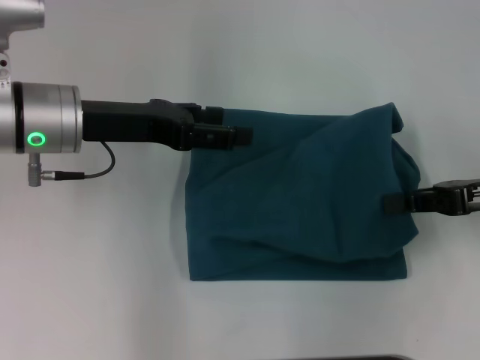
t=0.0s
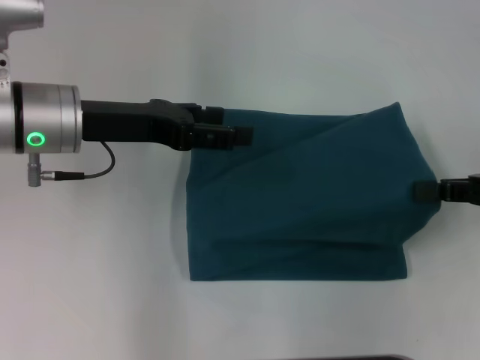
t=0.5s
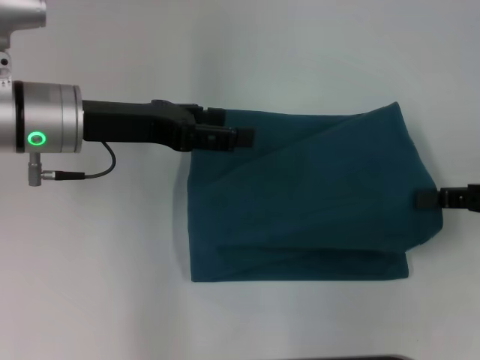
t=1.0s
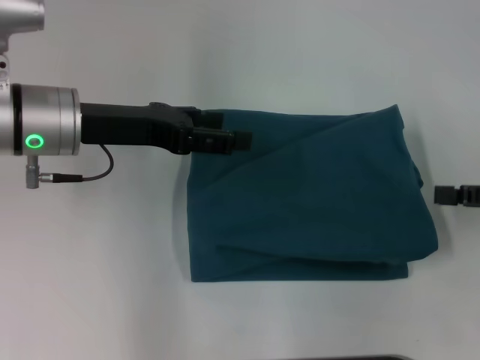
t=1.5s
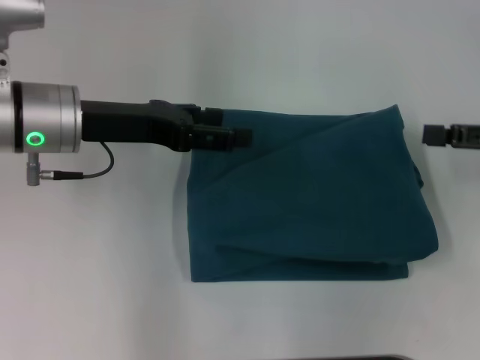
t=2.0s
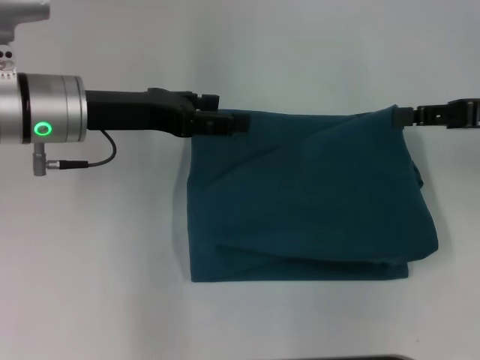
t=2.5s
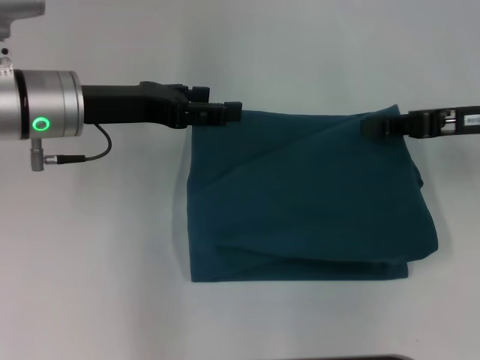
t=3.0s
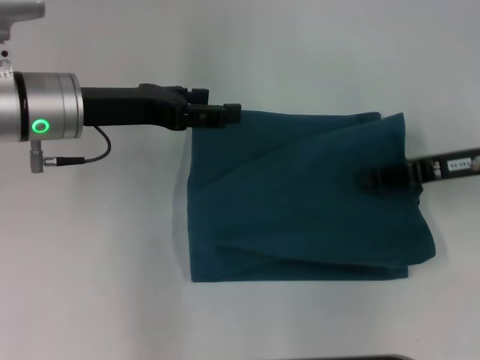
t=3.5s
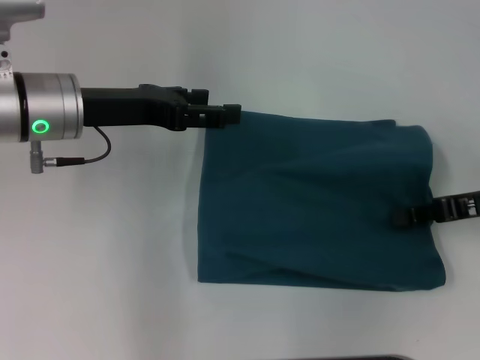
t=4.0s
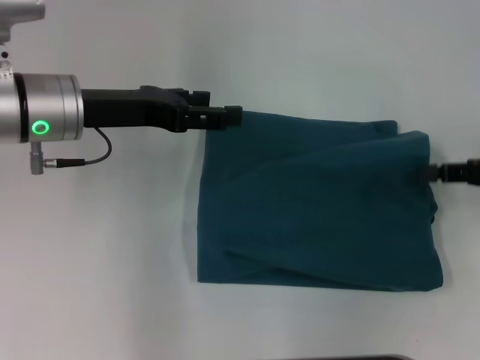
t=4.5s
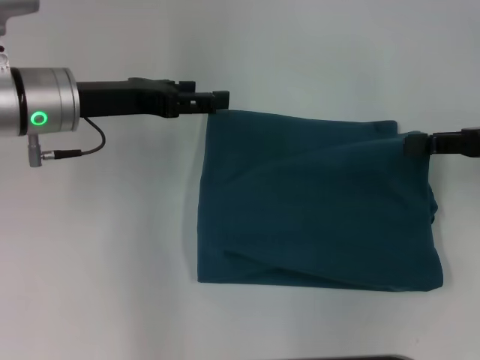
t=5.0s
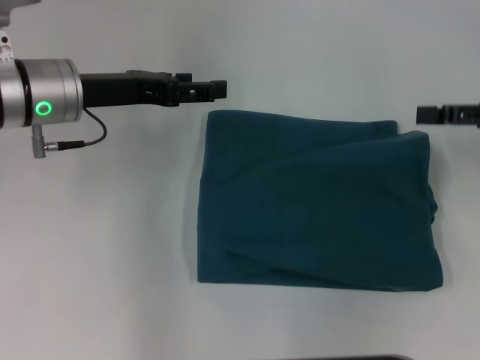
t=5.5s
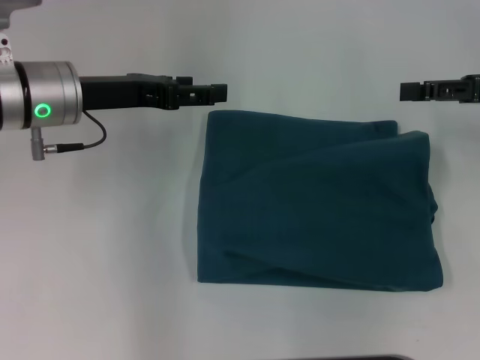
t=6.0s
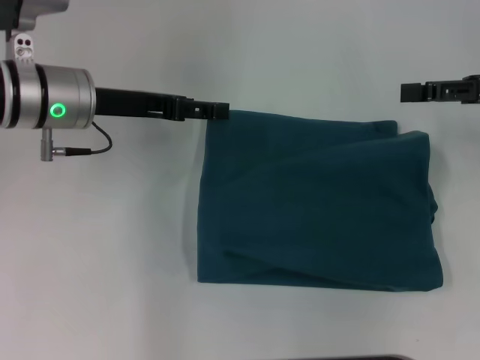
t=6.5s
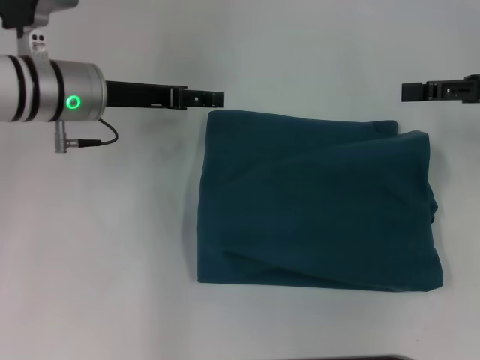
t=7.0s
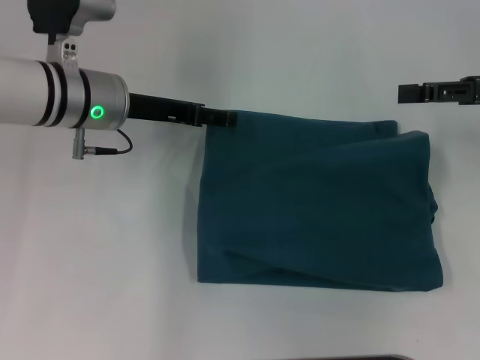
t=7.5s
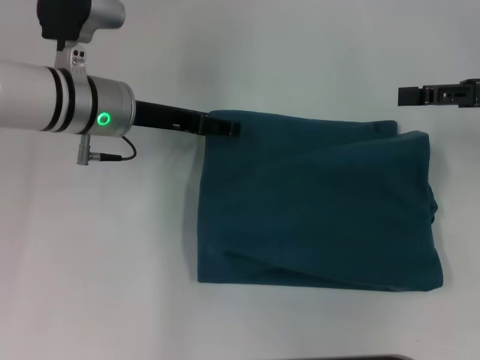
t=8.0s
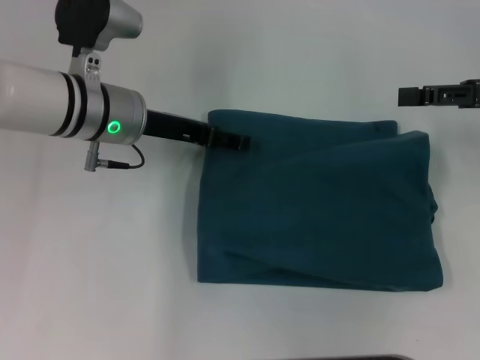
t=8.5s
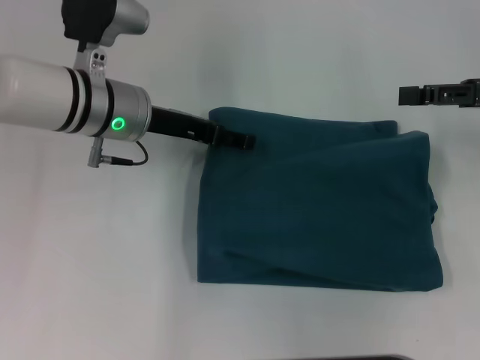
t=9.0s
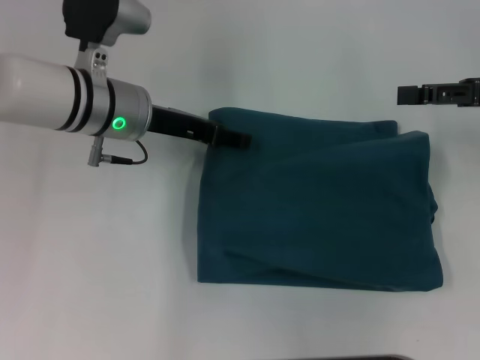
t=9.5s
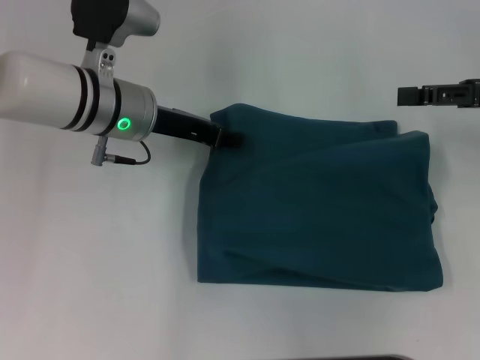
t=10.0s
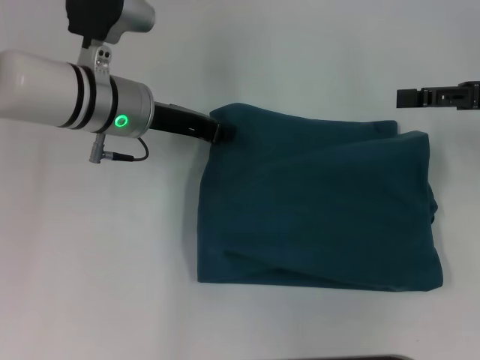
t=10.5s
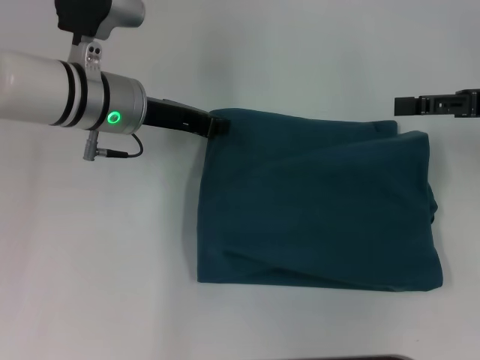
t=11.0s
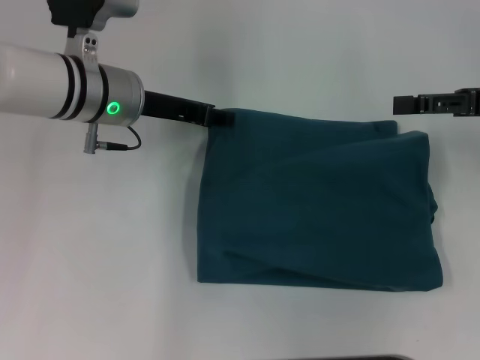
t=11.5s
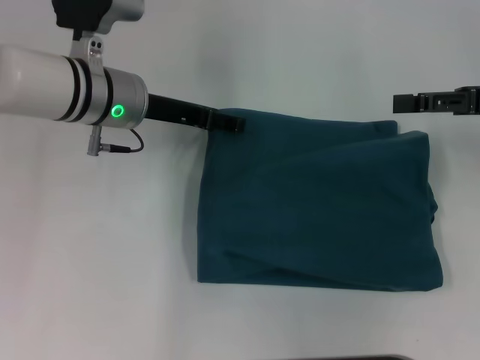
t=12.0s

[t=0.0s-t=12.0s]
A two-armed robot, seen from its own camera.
t=0.0s to t=2.0s: The right gripper opens its fingers.
t=2.0s to t=4.0s: The right gripper shifts by about 5 cm, and closes up.
t=4.0s to t=6.0s: The right gripper moves upward, roughly 5 cm, and opens up.
t=6.0s to t=8.0s: The left gripper shifts by about 5 cm.
t=8.0s to t=10.0s: The left gripper closes.
t=10.0s to t=12.0s: The left gripper closes, then opens again.

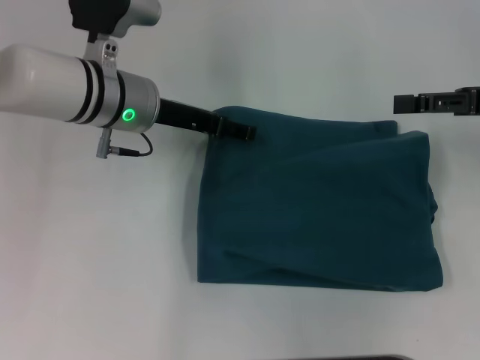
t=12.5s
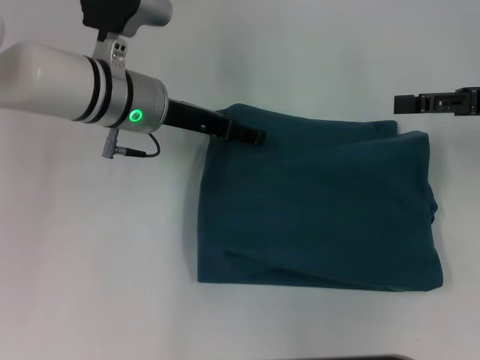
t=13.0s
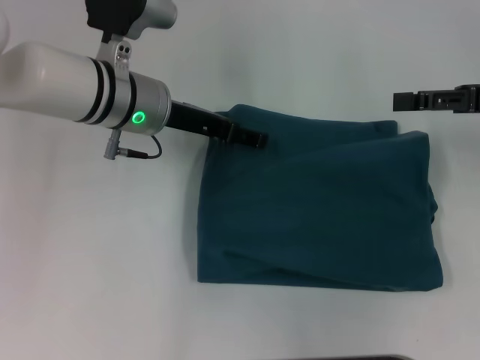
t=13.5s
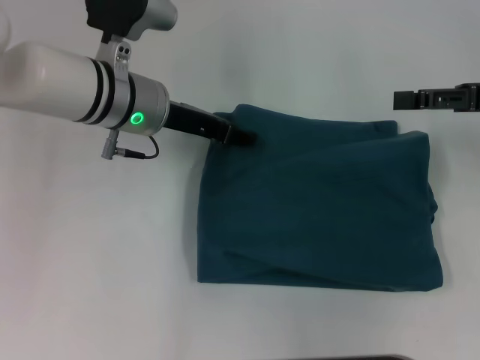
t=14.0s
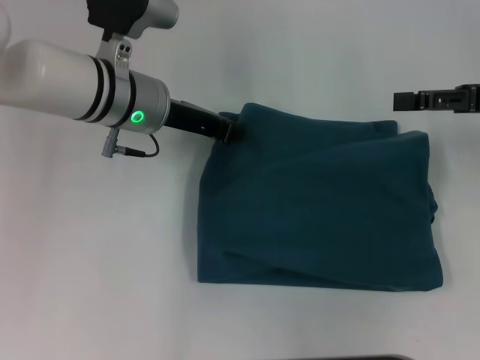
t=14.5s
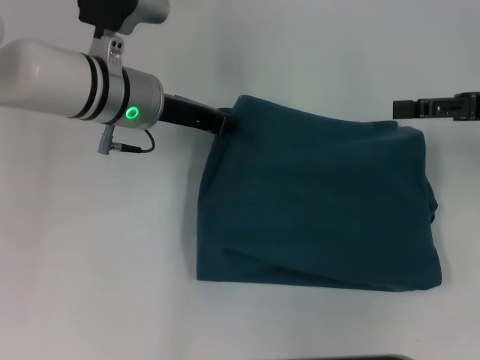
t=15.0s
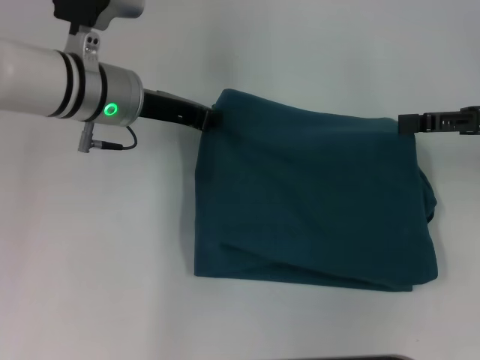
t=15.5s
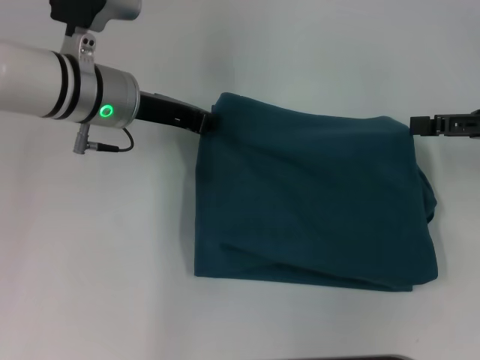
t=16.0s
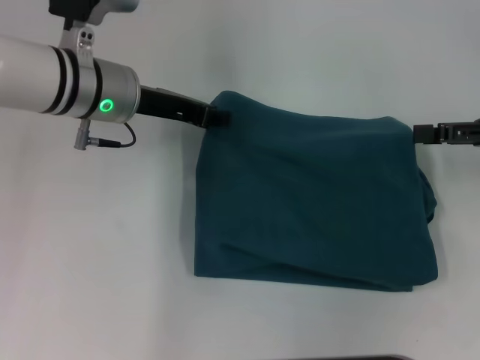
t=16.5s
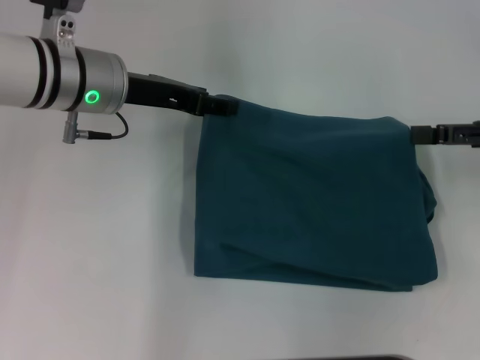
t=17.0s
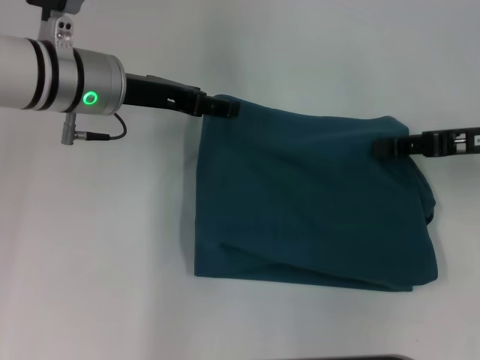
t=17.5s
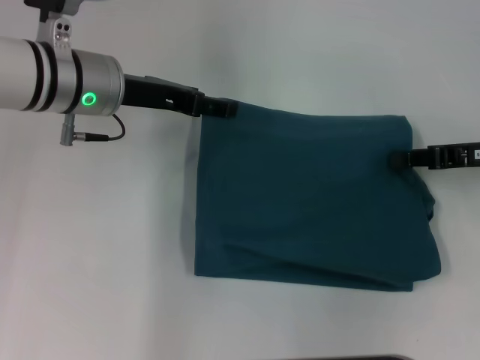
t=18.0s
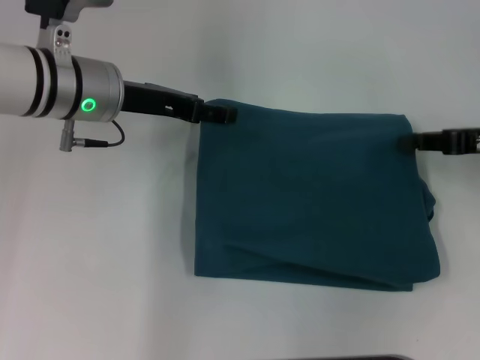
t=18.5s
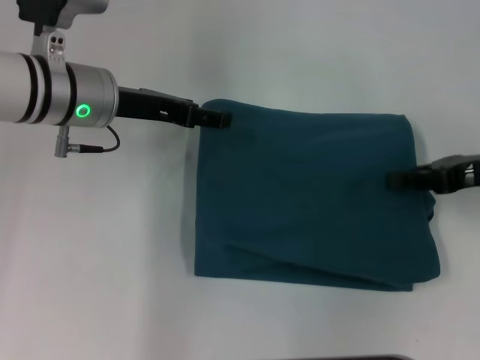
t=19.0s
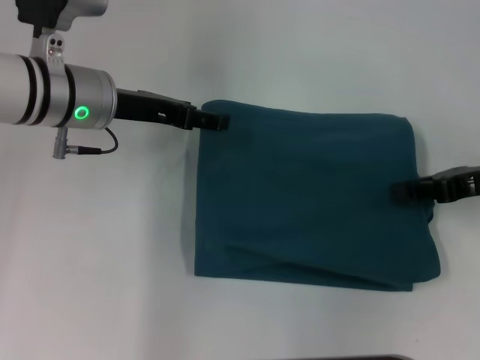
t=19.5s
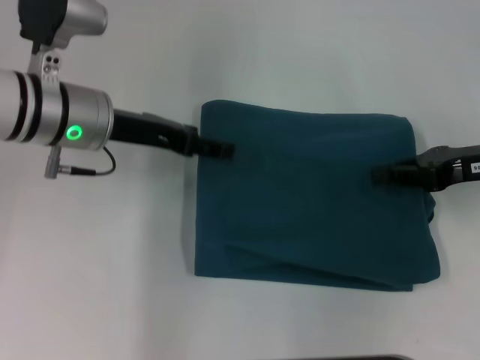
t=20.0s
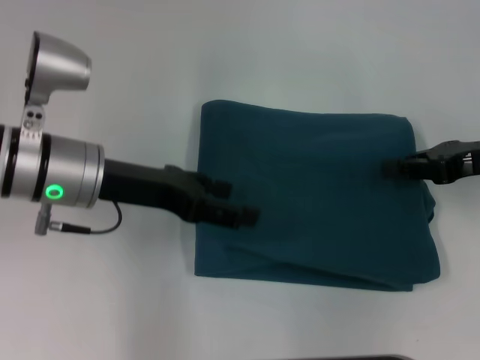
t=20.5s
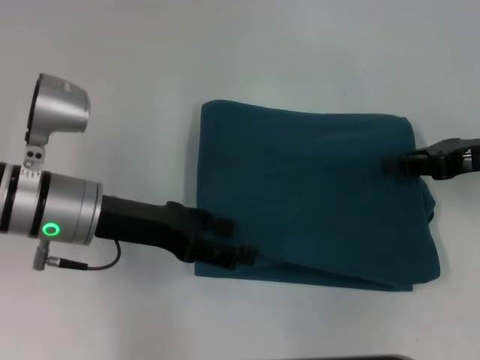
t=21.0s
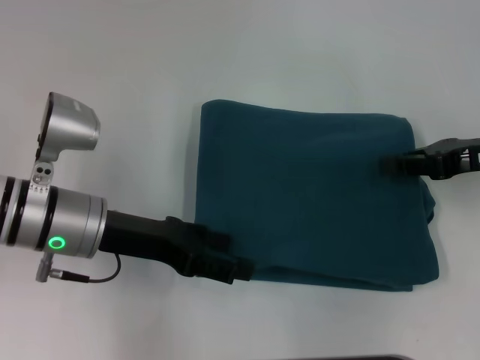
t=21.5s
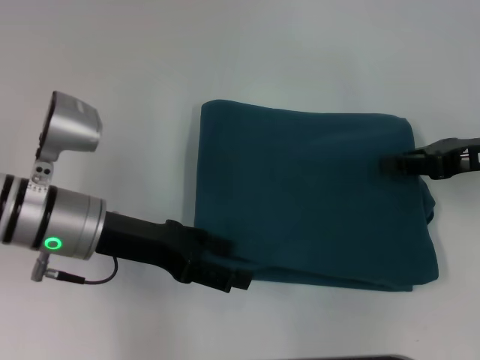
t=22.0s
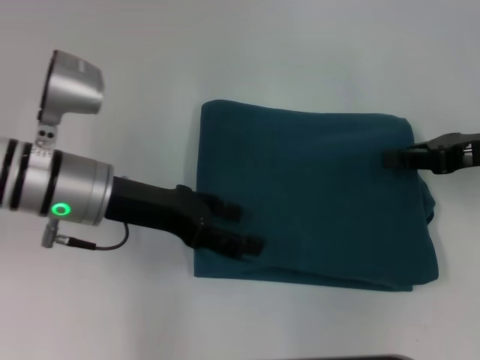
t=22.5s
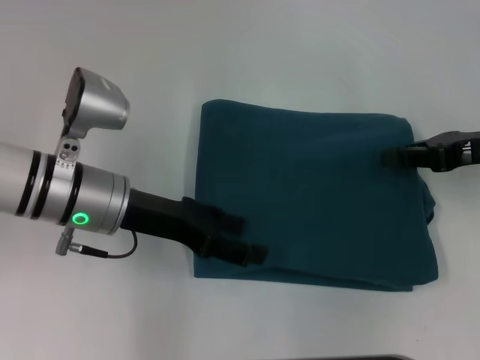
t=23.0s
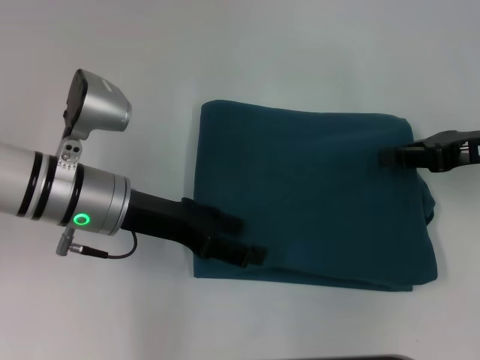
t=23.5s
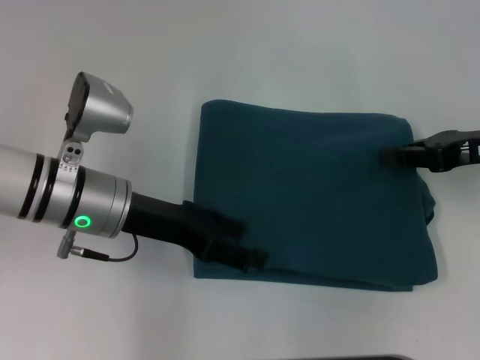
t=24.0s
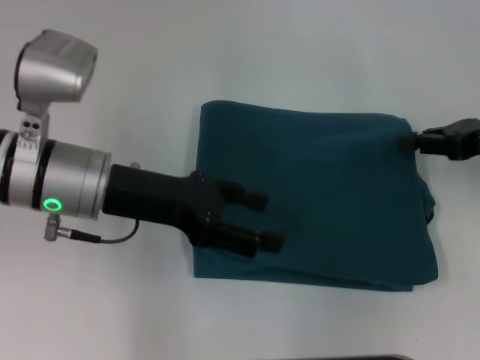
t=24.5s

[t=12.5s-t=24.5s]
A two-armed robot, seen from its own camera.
t=12.5s to t=14.5s: The left gripper closes up.
t=14.5s to t=16.5s: The grippers stay close to where they were, moving slightly.
t=16.5s to t=18.5s: The right gripper closes. The left gripper opens up.
t=18.5s to t=20.5s: The left gripper moves backward, some 5 cm.
t=20.5s to t=24.5s: The grippers make only small movements.

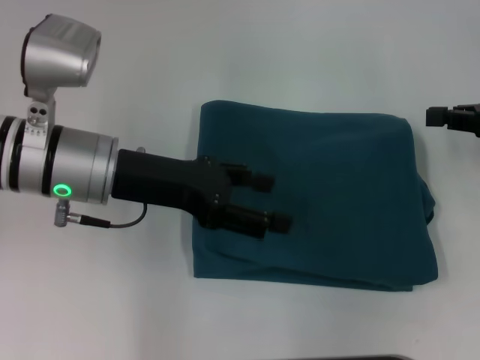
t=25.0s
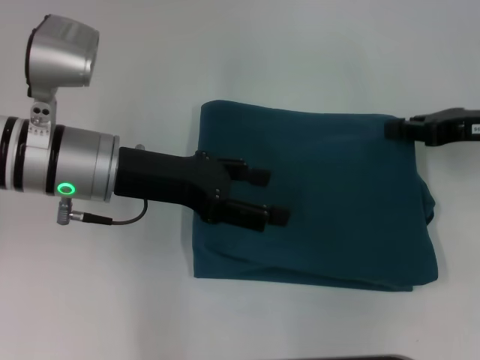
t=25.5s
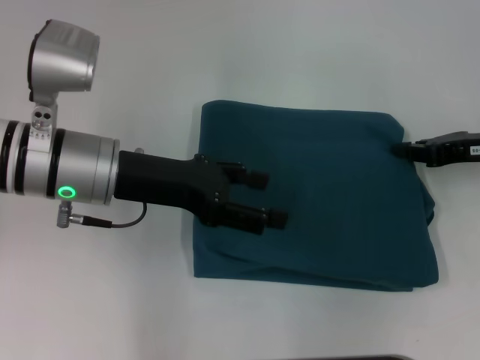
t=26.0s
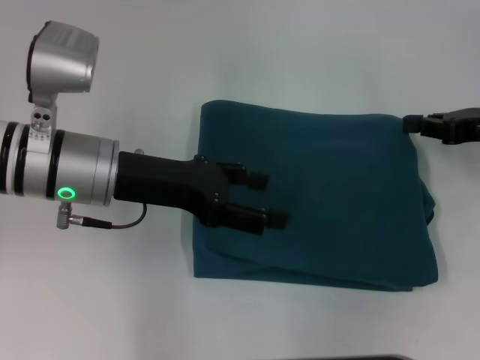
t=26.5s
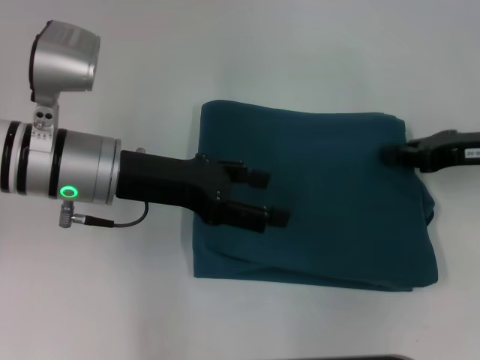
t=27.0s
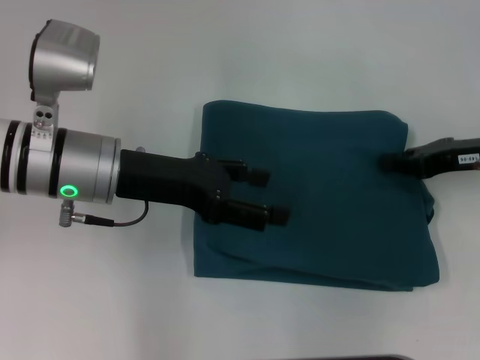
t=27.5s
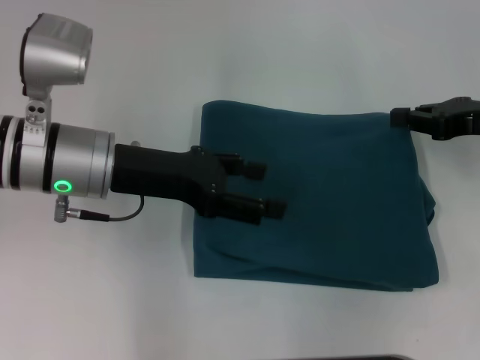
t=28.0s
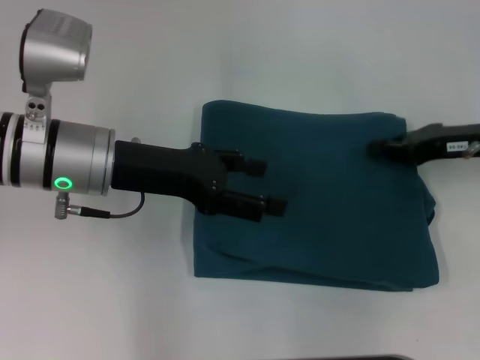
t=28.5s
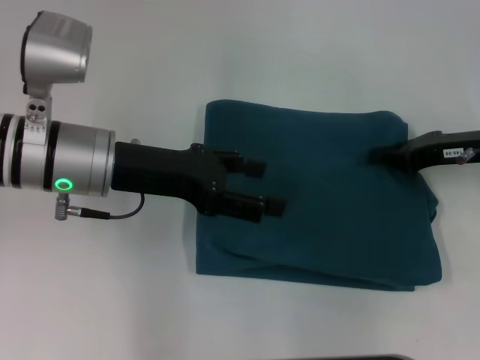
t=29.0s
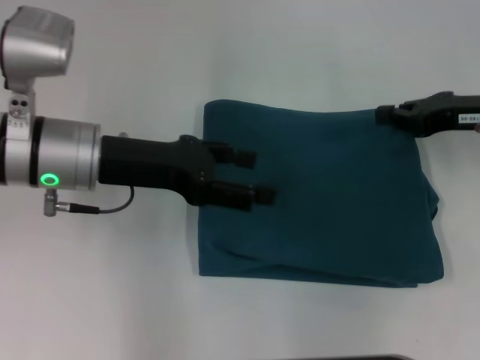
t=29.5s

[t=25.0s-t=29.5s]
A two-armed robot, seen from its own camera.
t=25.0s to t=27.0s: The right gripper shifts by some 5 cm.
t=27.0s to t=29.5s: There are only small adjustments of the grippers.
